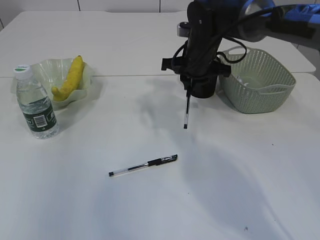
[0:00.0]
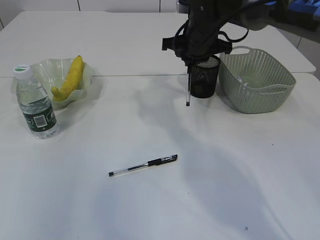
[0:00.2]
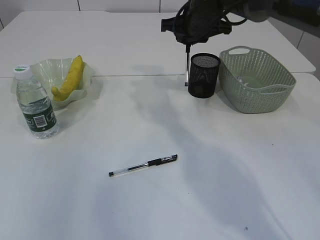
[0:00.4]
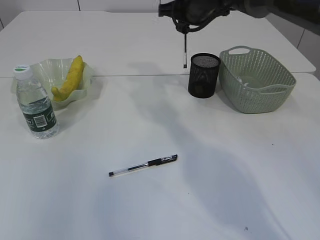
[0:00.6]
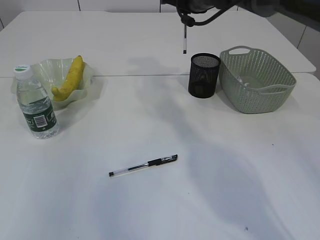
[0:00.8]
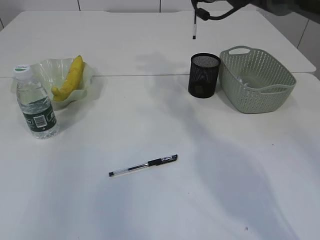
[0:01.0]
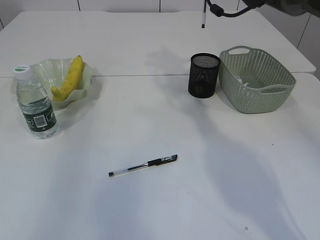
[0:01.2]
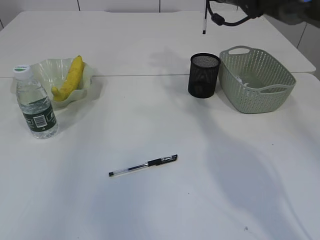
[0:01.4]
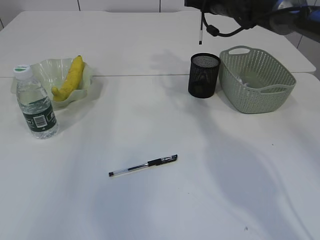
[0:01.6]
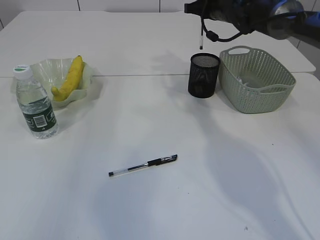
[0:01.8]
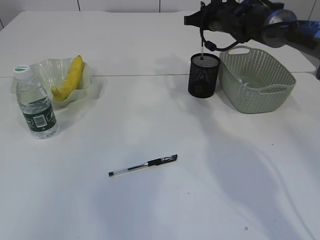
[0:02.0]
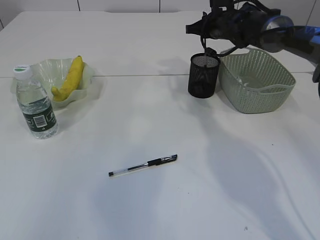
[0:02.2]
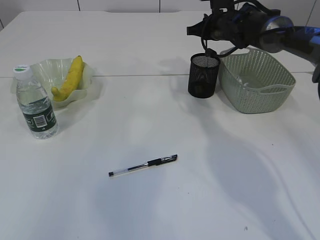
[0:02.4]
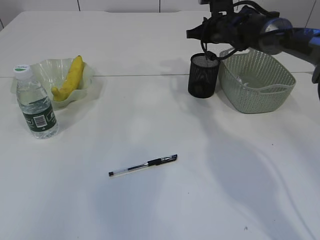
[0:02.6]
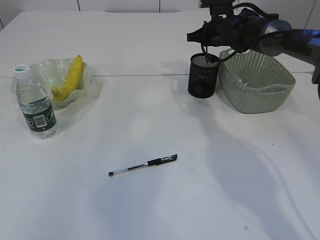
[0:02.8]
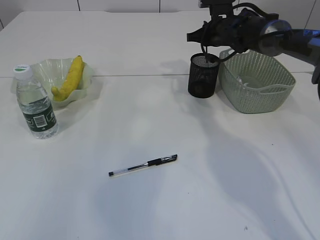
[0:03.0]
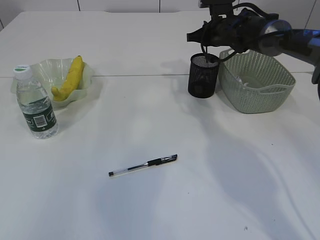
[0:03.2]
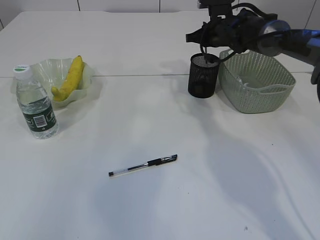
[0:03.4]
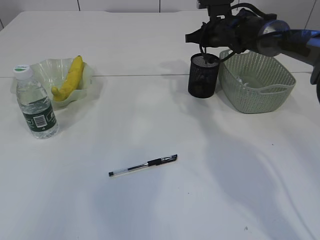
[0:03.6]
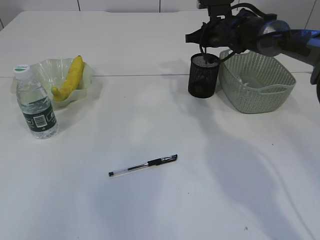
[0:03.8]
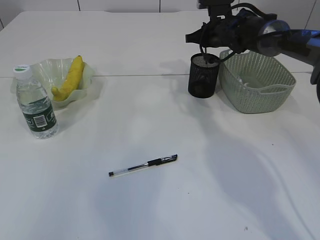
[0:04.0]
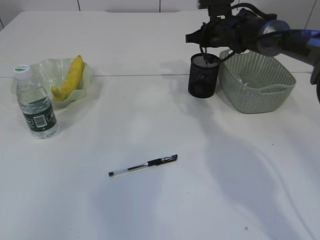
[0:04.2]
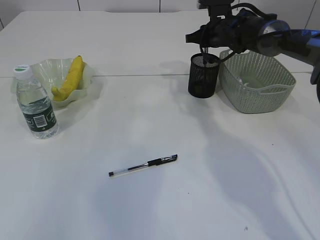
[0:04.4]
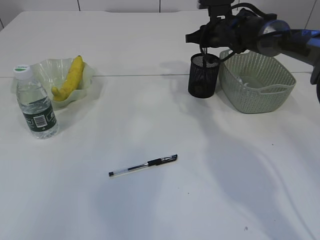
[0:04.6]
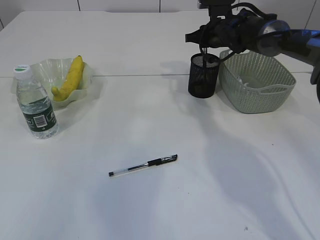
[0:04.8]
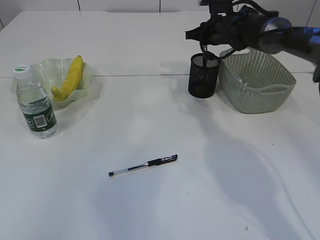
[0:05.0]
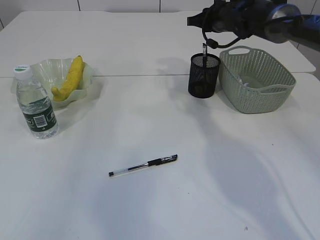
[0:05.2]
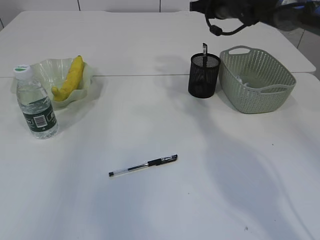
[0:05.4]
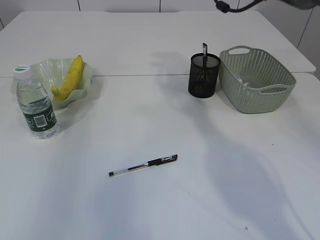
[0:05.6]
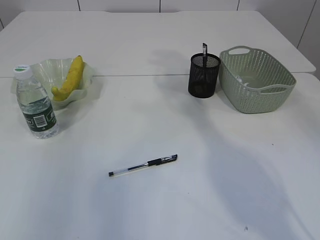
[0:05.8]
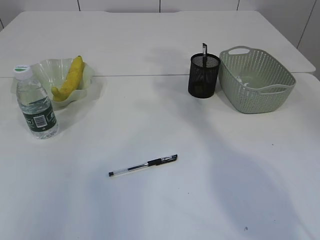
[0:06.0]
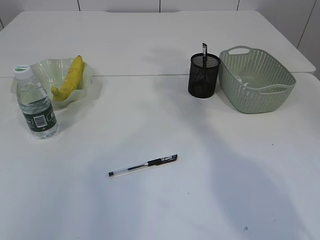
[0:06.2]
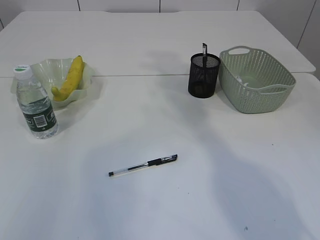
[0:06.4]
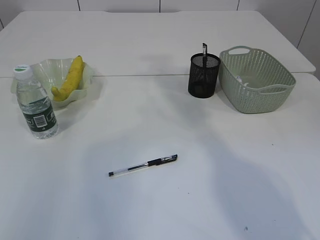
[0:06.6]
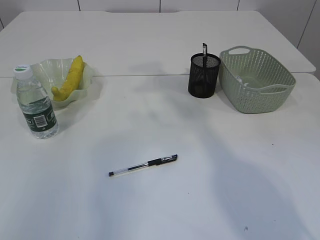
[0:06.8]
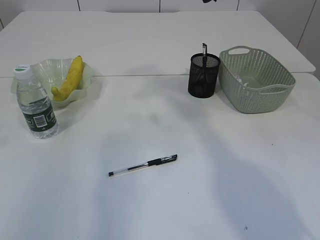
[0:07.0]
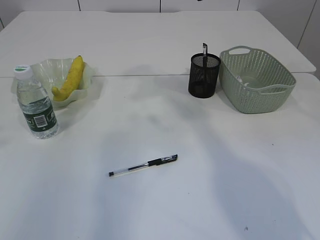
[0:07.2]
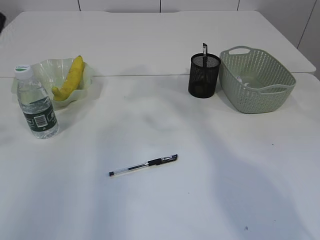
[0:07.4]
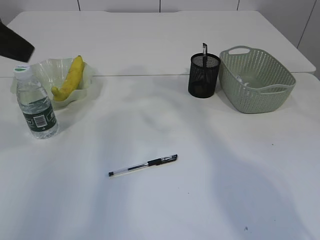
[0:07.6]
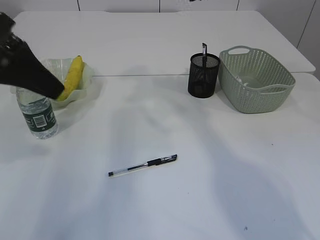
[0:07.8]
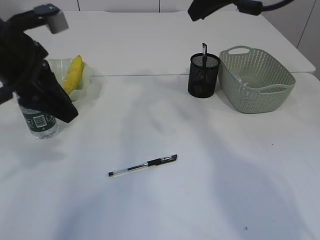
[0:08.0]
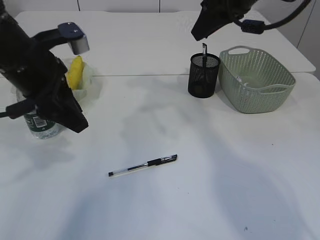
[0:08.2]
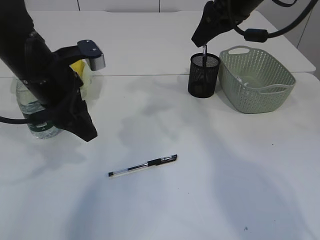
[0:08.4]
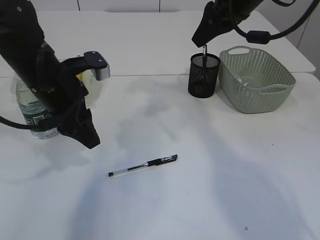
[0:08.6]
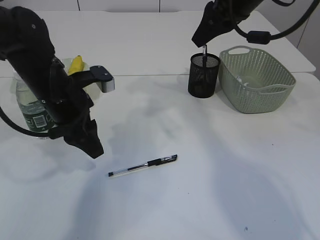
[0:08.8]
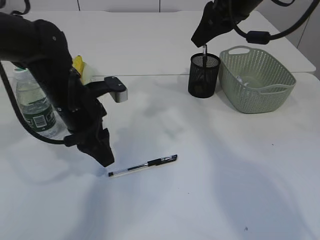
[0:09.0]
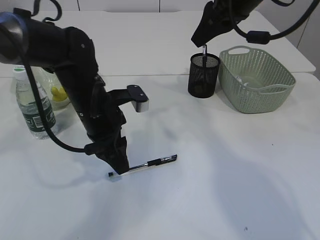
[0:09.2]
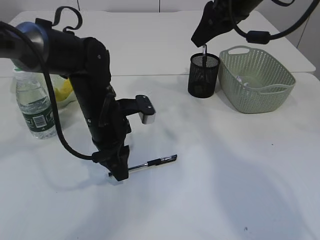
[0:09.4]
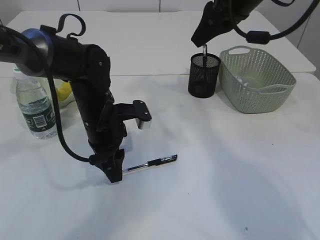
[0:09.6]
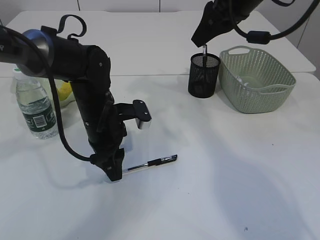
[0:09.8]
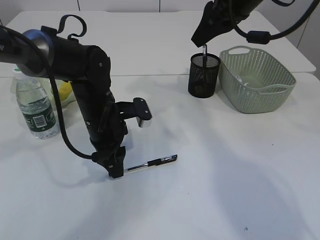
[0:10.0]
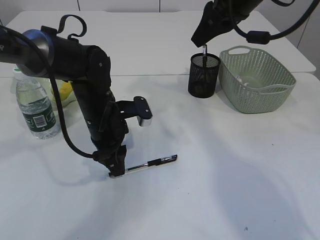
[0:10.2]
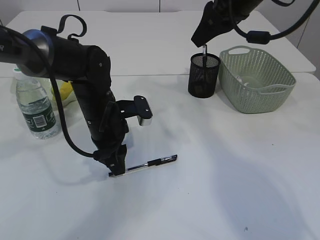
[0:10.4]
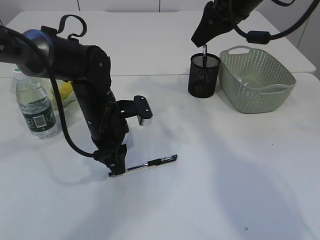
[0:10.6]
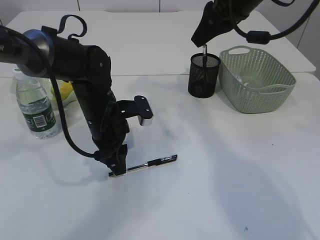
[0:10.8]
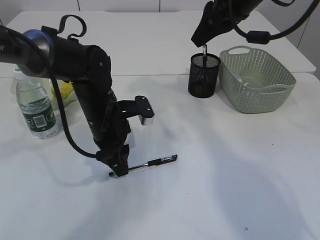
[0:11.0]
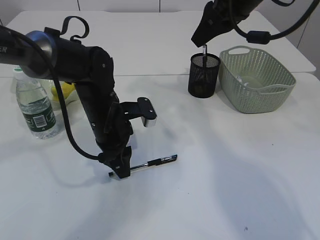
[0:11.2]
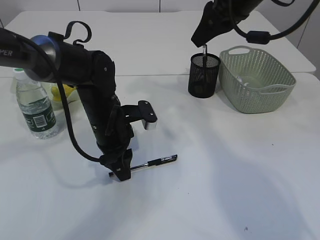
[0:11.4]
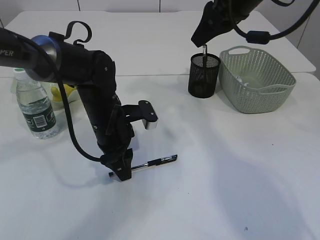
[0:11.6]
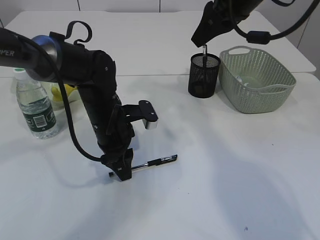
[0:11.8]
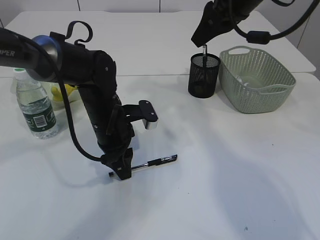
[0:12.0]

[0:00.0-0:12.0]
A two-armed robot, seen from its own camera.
Step, 0:00.0 to 0:05.2: Place the pen into the pen holder.
0:00.0 to 0:01.6: The right gripper shifts roughly 15 cm forward, to the right and upward.
0:01.6 to 0:03.0: The right gripper goes about 5 cm downward.
0:03.0 to 0:04.4: The two grippers keep their place.
0:04.4 to 0:06.0: The right gripper travels upward by roughly 20 cm.
0:06.0 to 0:07.6: The left gripper moves downward and forward, some 20 cm.
0:07.6 to 0:09.0: The right gripper goes some 5 cm downward. Meanwhile the left gripper moves downward and to the right, roughly 25 cm.
0:09.0 to 0:10.4: The left gripper shifts by about 5 cm.
0:10.4 to 0:12.0: Both grippers stay about where they are.

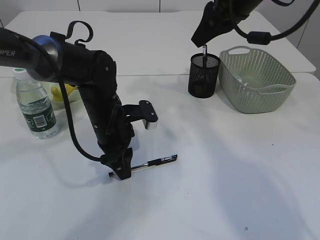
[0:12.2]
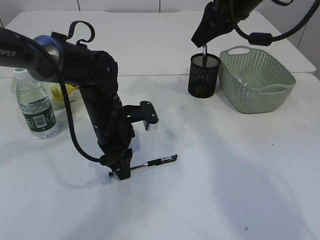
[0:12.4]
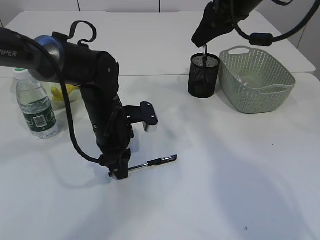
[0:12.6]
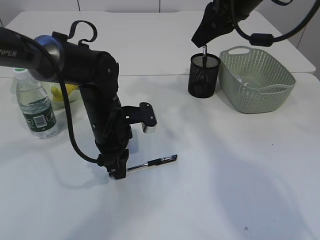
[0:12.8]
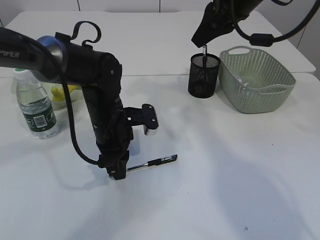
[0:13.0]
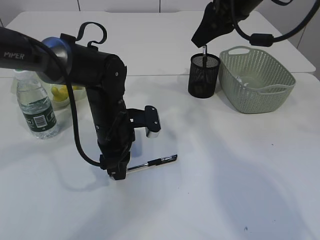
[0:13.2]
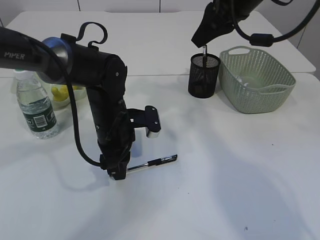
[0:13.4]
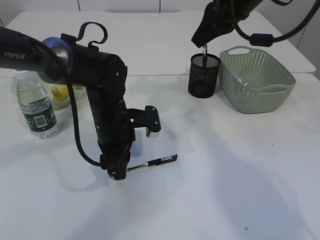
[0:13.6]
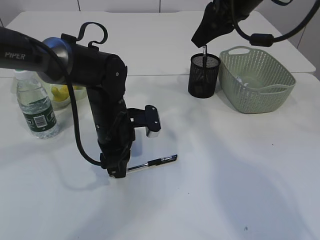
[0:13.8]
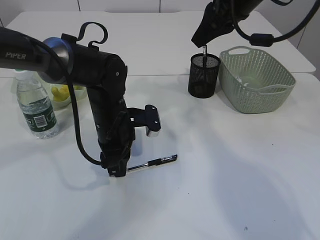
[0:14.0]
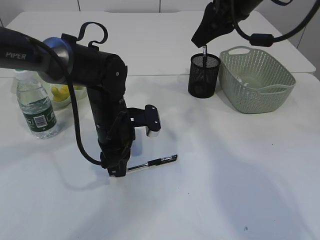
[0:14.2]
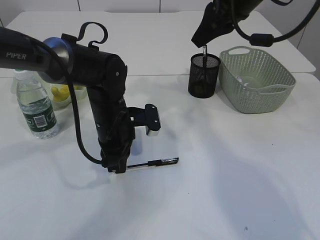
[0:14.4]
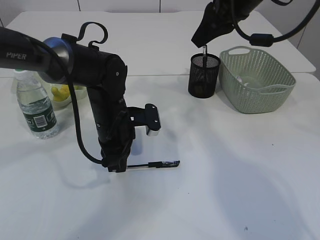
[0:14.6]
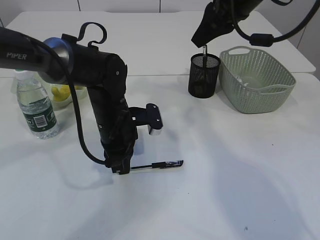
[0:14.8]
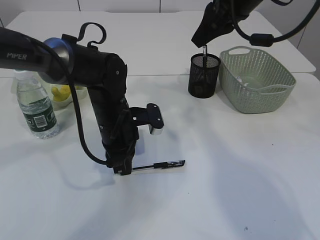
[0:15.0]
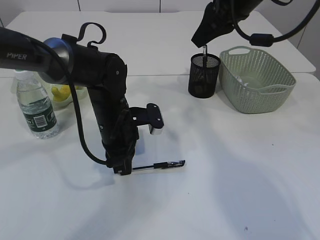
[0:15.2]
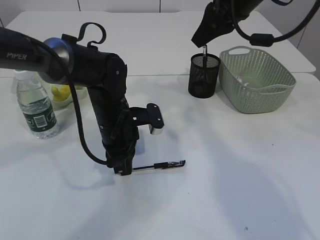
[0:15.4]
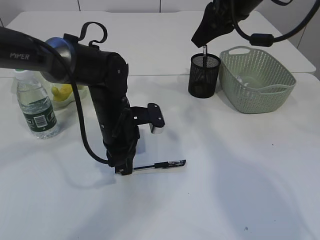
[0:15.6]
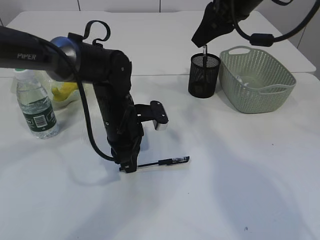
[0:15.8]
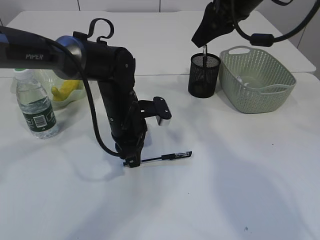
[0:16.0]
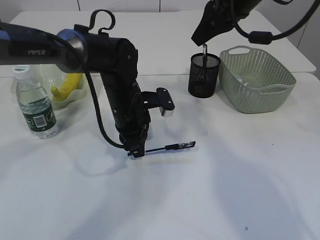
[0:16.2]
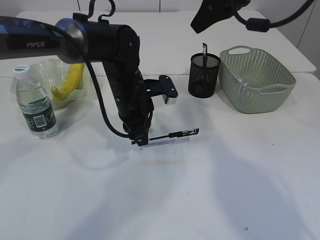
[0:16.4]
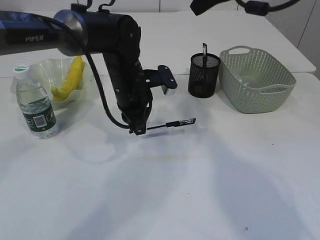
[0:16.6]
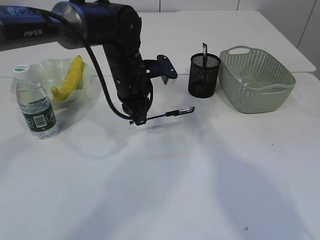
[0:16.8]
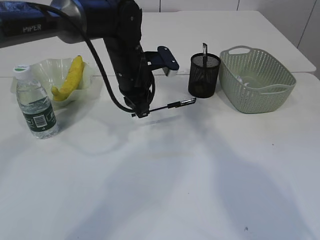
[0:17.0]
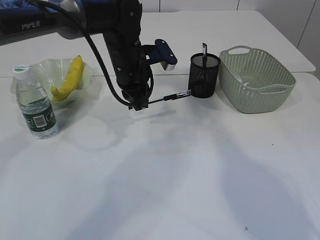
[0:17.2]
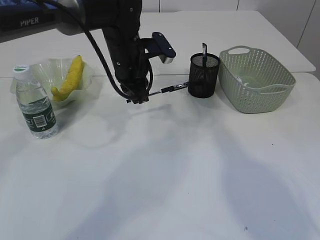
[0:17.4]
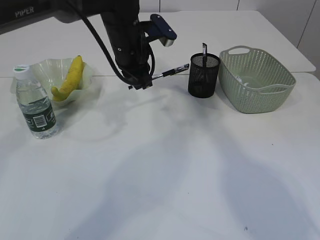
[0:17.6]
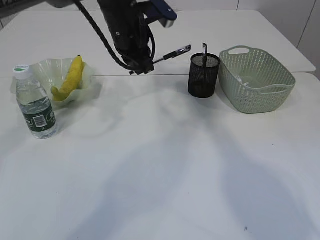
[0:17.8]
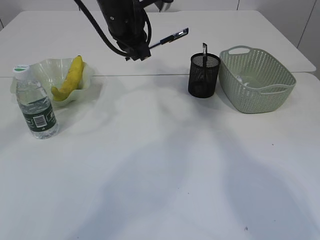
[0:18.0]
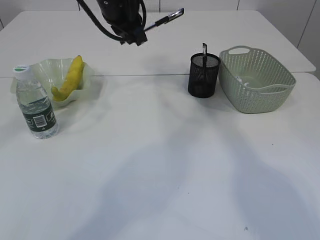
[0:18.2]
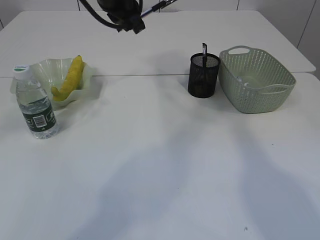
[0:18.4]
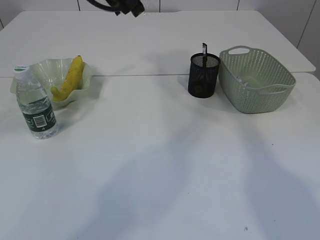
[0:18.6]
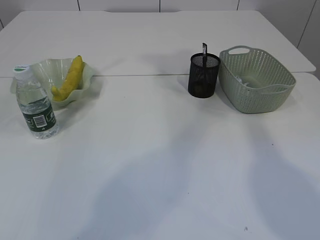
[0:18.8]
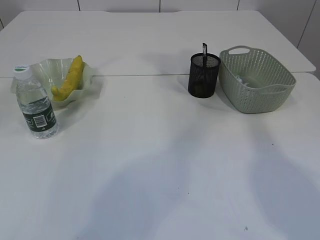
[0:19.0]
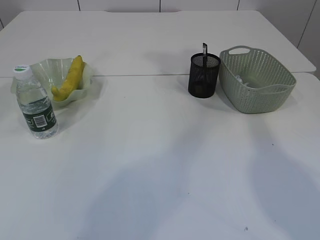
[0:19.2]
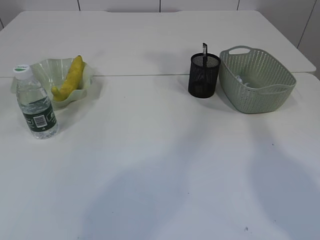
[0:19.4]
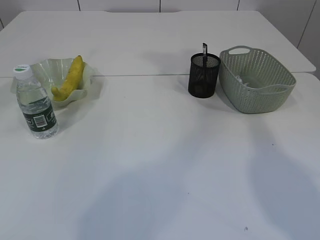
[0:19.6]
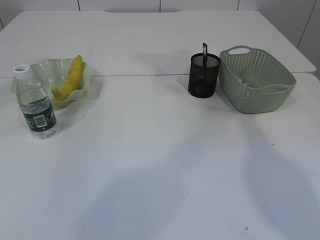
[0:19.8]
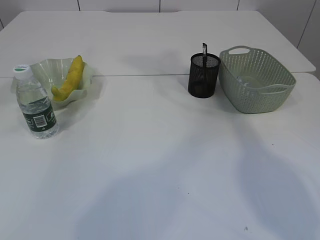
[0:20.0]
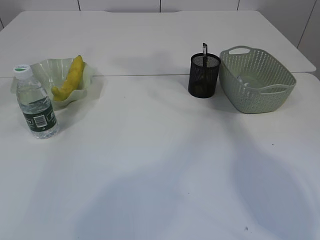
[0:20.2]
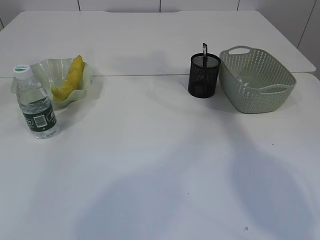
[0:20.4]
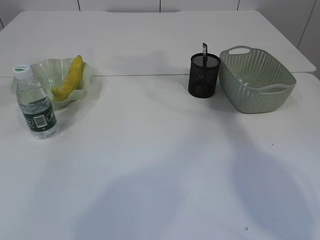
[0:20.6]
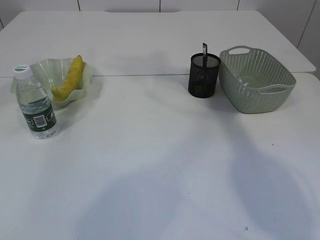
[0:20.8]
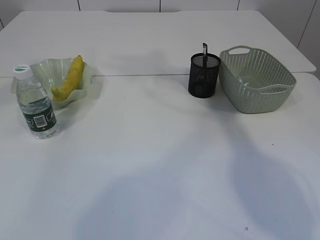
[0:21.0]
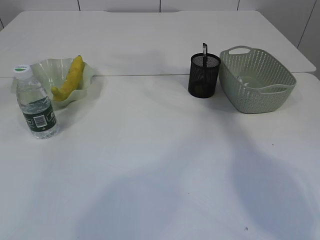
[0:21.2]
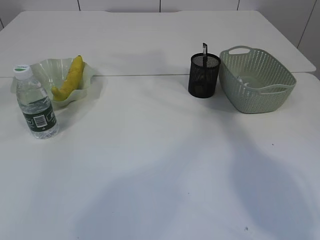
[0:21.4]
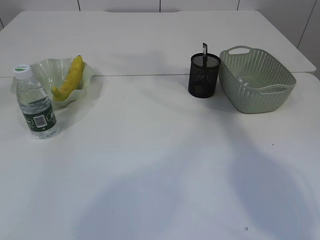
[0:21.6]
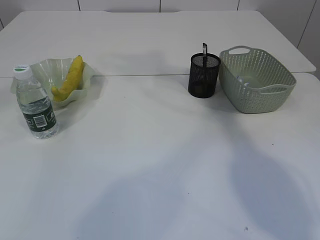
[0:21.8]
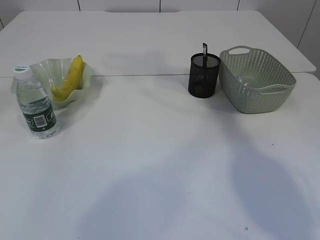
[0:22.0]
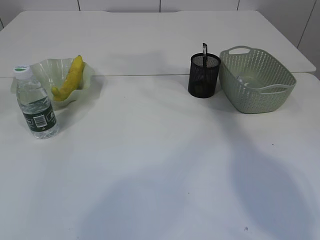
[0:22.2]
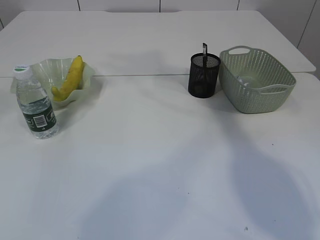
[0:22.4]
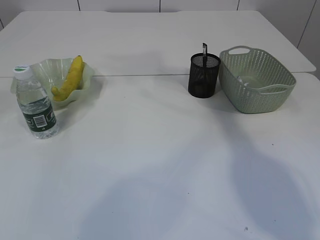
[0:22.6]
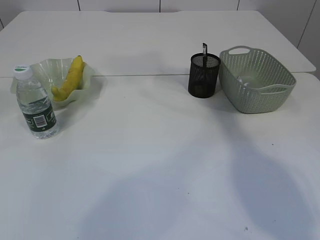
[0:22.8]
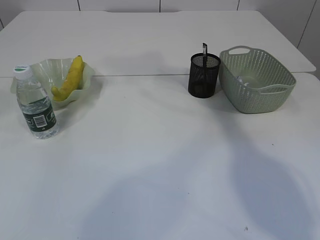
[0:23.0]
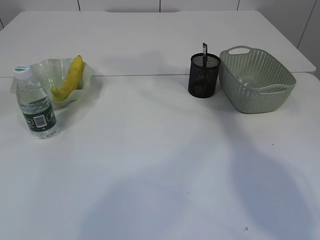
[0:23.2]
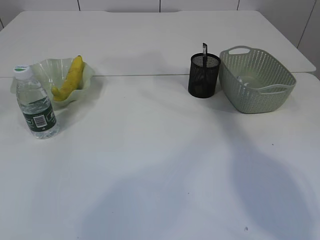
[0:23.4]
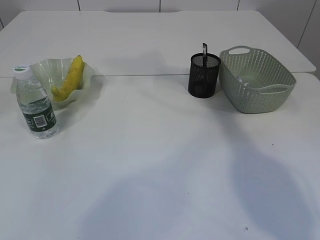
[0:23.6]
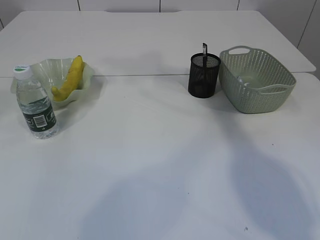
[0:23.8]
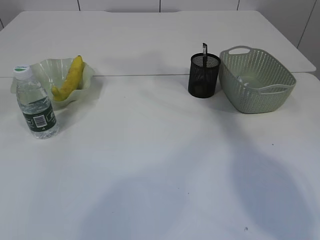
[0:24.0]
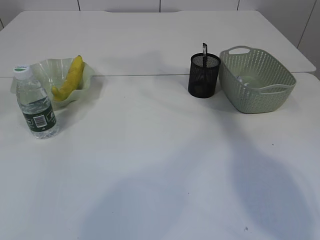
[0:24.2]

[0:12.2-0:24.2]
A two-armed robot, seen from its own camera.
Step, 0:12.2 to 0:16.8: Pick up the pen with left arm.
0:12.2 to 0:13.8: The grippers make only small movements.
0:13.8 to 0:15.2: The left gripper closes.
0:15.2 to 0:16.6: The left gripper heads upward and forward, covering about 10 cm.
0:16.6 to 0:18.2: The right gripper goes approximately 10 cm upward and to the right. Meanwhile the left gripper moves upward, about 15 cm.
0:18.2 to 0:19.8: The left gripper shifts some 20 cm upward and backward.
0:19.8 to 0:21.2: The right gripper travels to the left by some 5 cm, and opens up.
